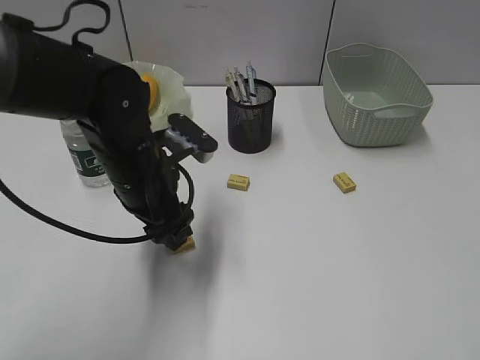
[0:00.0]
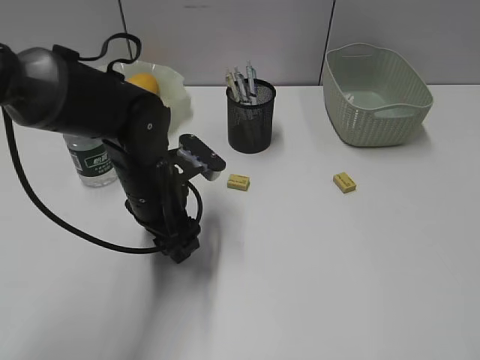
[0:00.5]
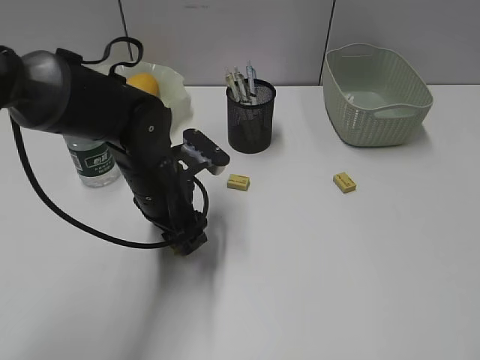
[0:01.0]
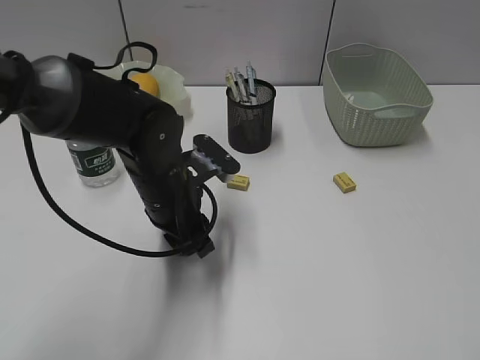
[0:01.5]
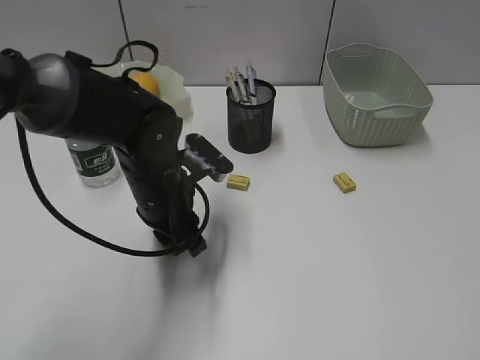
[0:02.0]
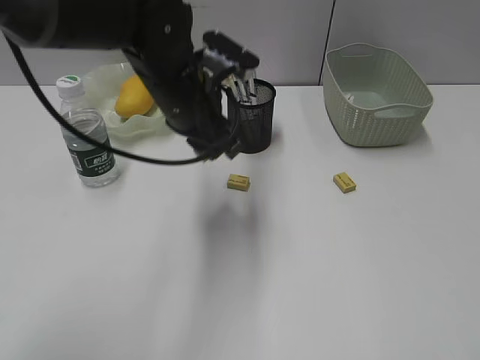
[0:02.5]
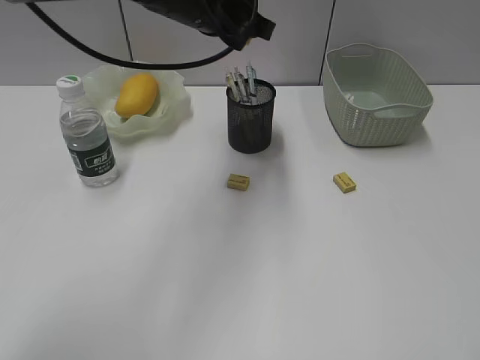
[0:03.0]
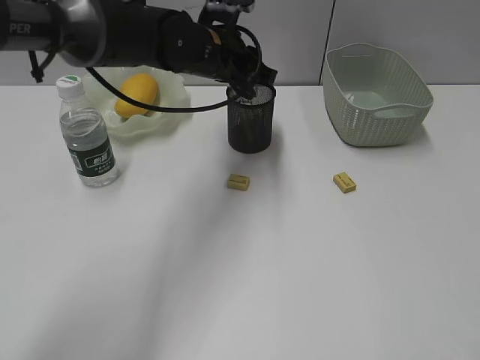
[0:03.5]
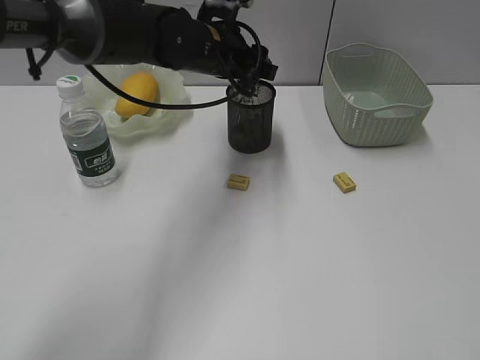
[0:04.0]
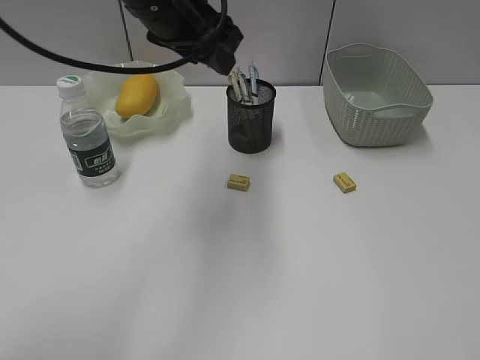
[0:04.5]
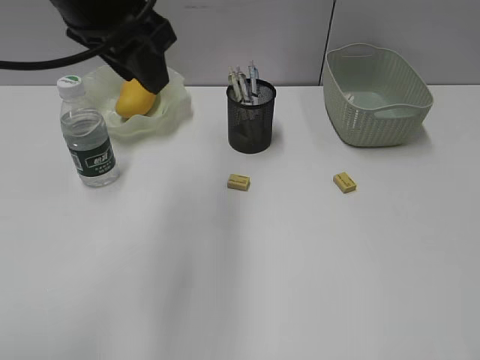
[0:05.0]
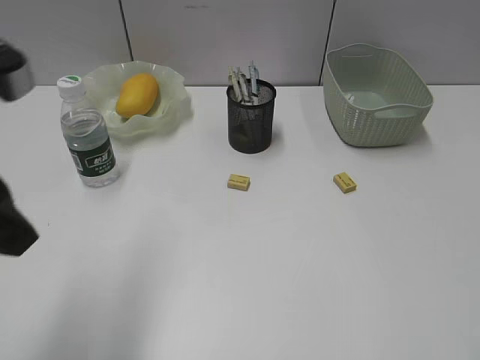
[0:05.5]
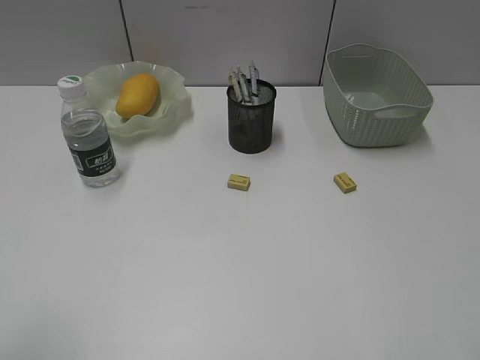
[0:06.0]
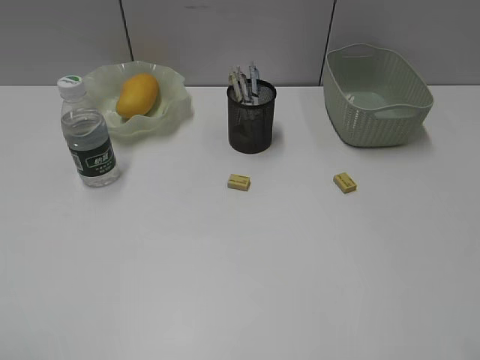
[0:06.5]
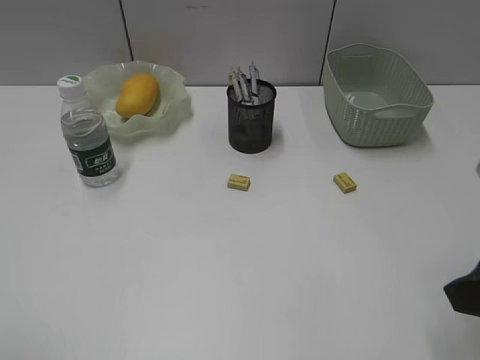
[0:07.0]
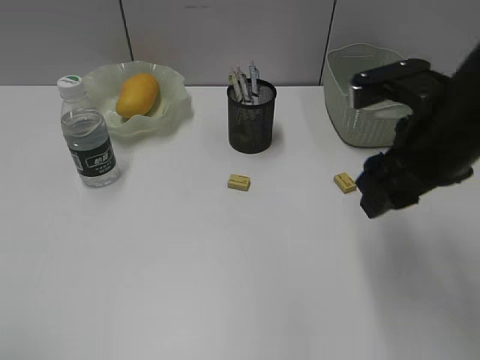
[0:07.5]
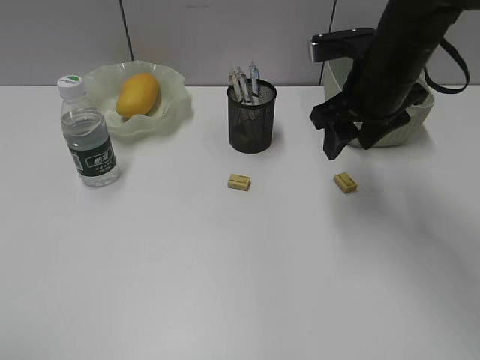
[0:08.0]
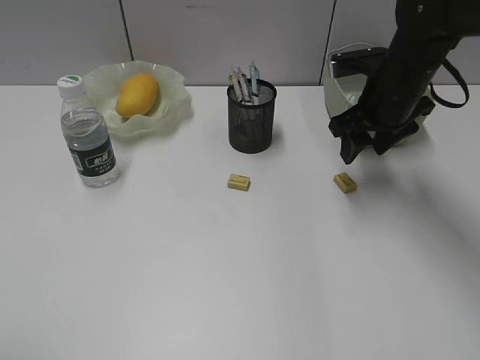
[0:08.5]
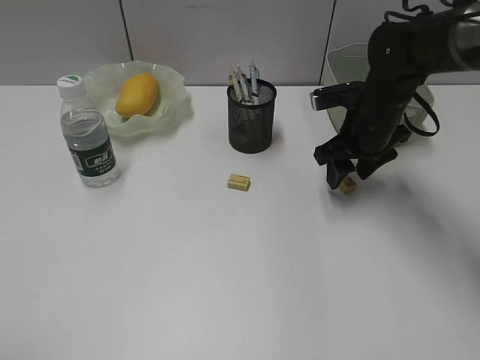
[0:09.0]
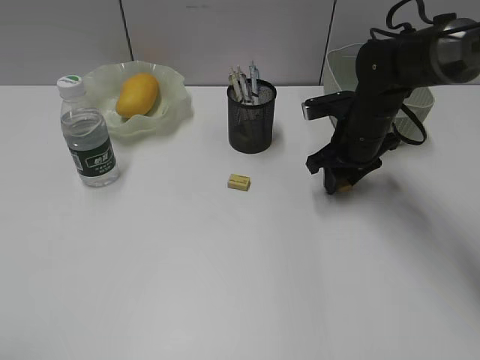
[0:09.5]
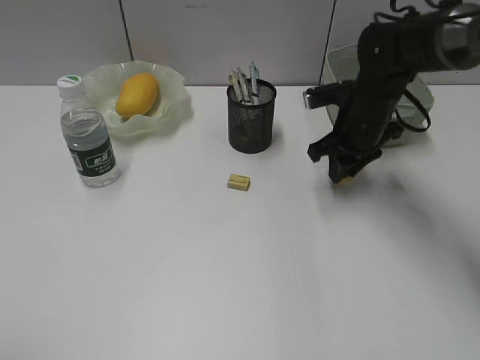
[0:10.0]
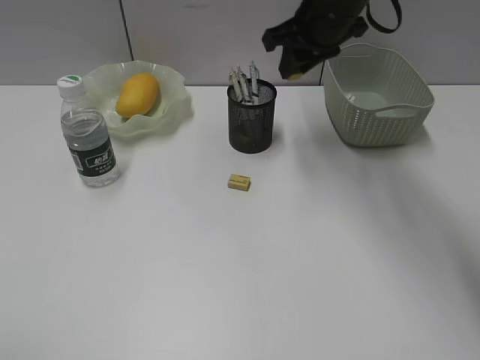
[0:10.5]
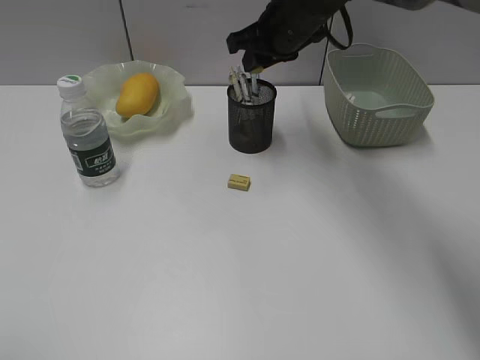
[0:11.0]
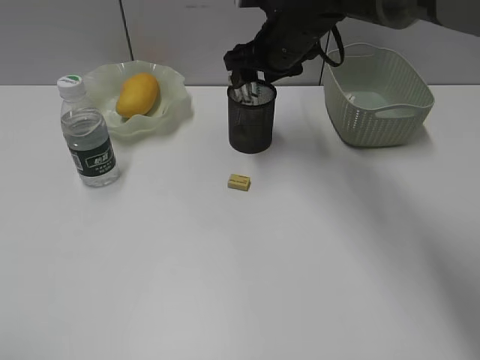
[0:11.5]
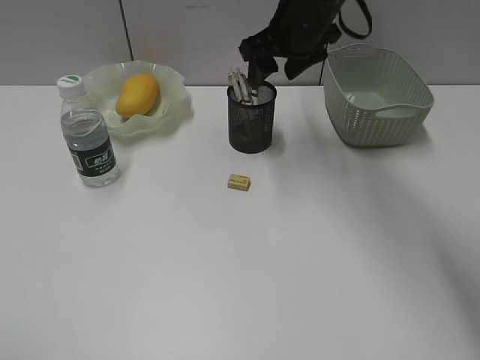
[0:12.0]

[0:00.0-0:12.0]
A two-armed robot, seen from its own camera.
Step, 0:02.0 to 0:03.5: Place the eraser in pen holder with left gripper.
Step, 0:04.0 to 0:09.5: Grasp the eraser with right gripper.
Step, 0:10.0 to 0:11.5: Place the eraser in pen holder with right gripper.
0:00.0 to 0:02.0: The left gripper closes.
0:02.0 to 0:04.0: The left gripper moves forward, upward and to the right, about 15 cm, and opens.
0:04.0 to 0:06.0: The left gripper is displaced backward and to the left by approximately 50 cm.
0:06.0 to 0:08.0: The right gripper is displaced forward by roughly 30 cm.
0:08.0 to 0:10.0: The right gripper goes approximately 10 cm downward and forward, and closes up.
0:10.0 to 0:12.0: The right gripper is displaced upward and to the left by roughly 15 cm, and opens.

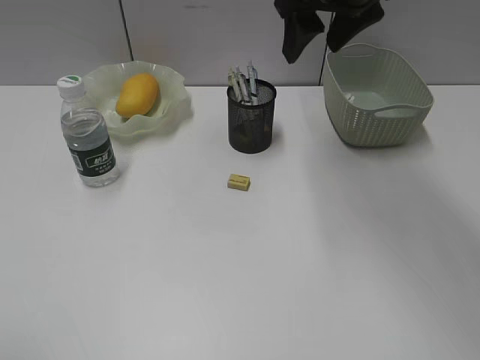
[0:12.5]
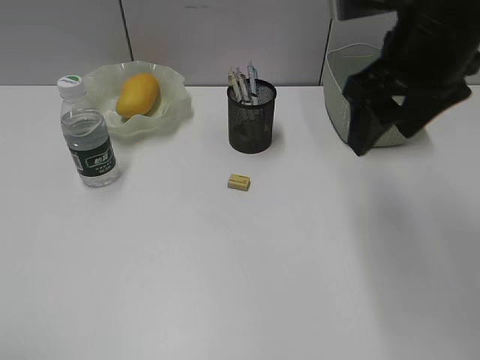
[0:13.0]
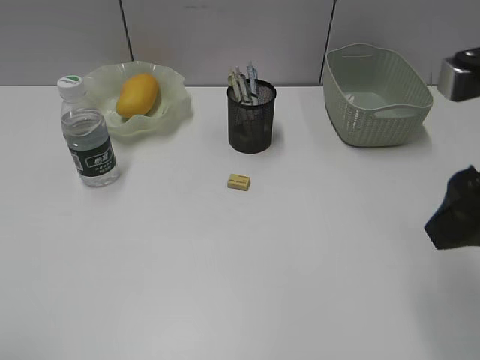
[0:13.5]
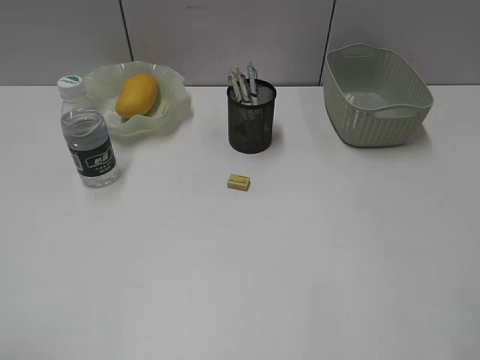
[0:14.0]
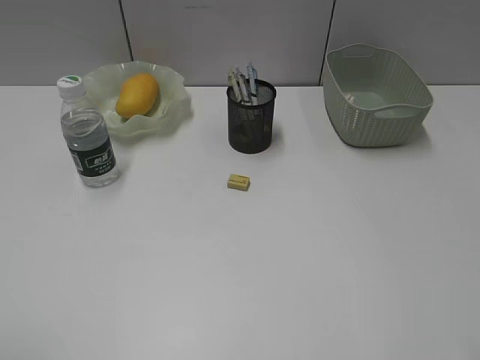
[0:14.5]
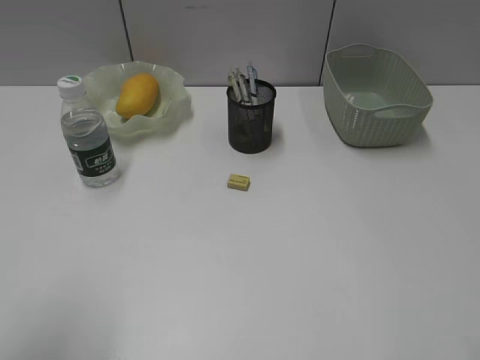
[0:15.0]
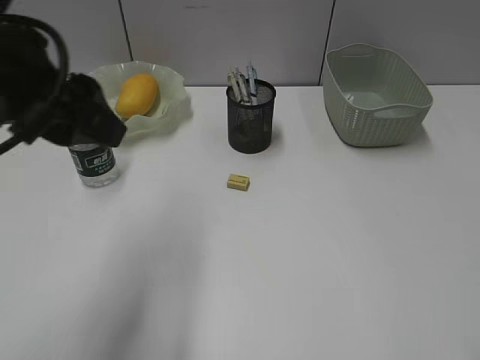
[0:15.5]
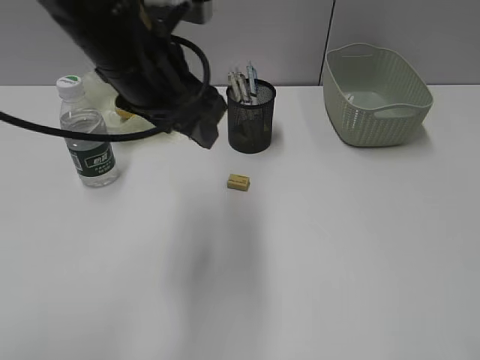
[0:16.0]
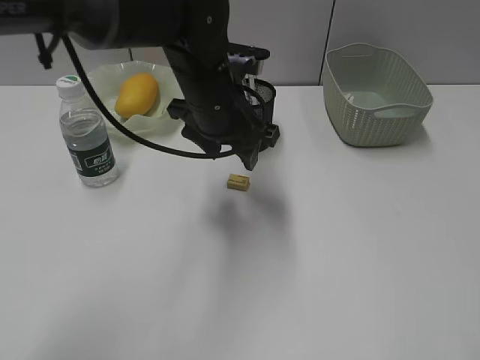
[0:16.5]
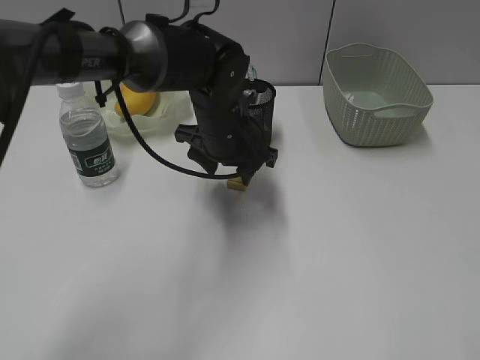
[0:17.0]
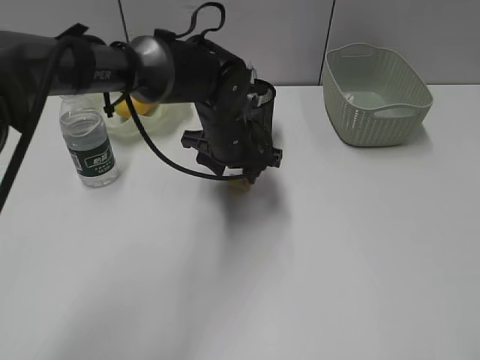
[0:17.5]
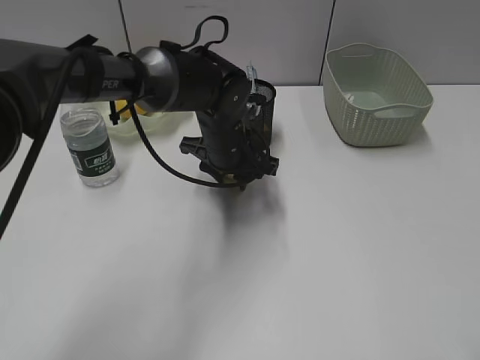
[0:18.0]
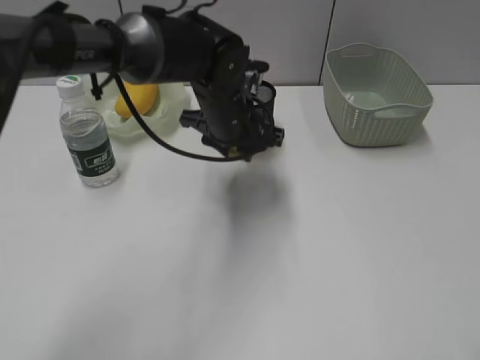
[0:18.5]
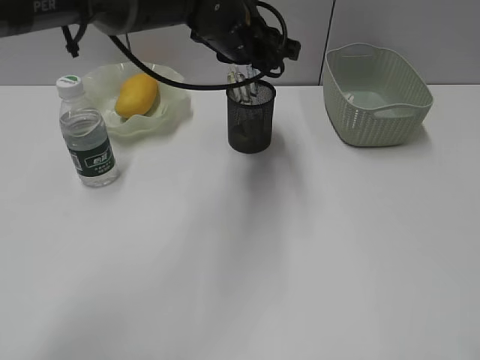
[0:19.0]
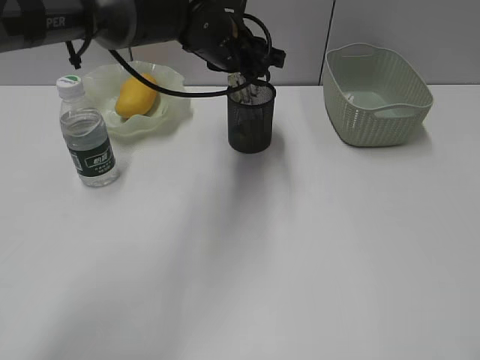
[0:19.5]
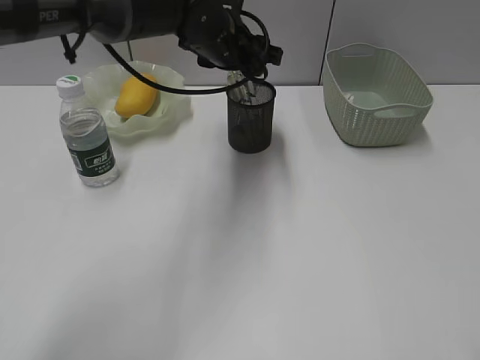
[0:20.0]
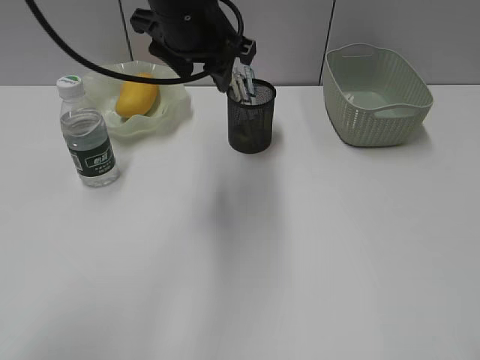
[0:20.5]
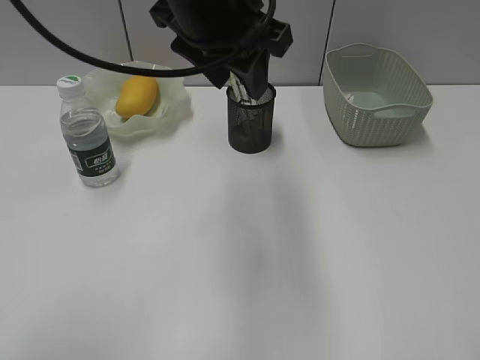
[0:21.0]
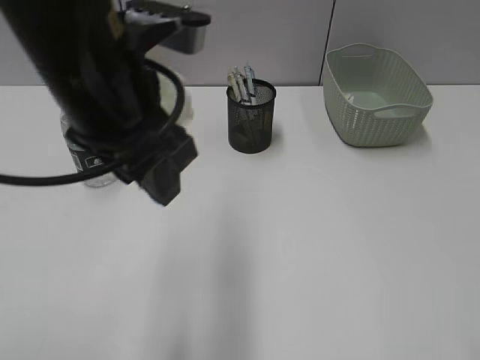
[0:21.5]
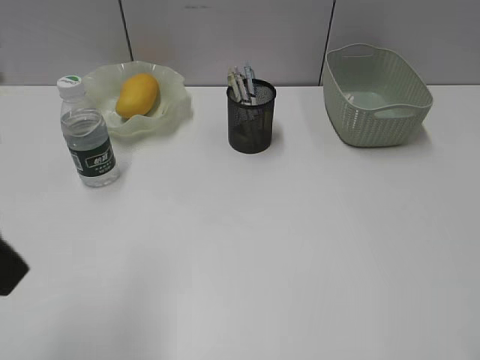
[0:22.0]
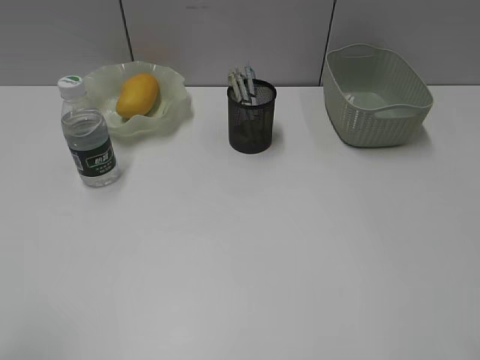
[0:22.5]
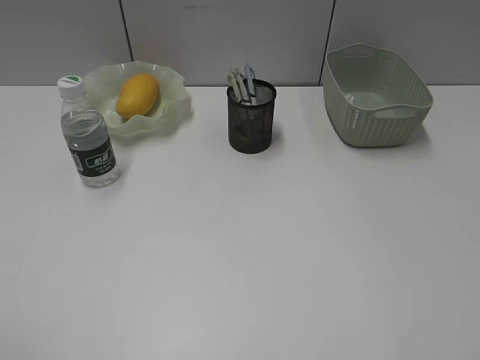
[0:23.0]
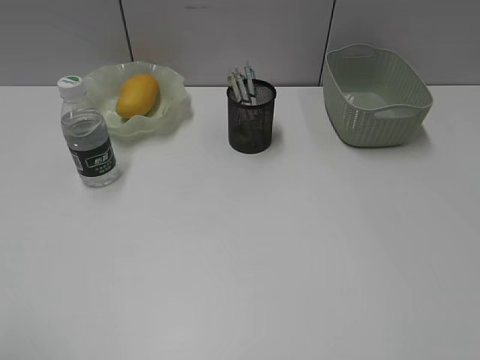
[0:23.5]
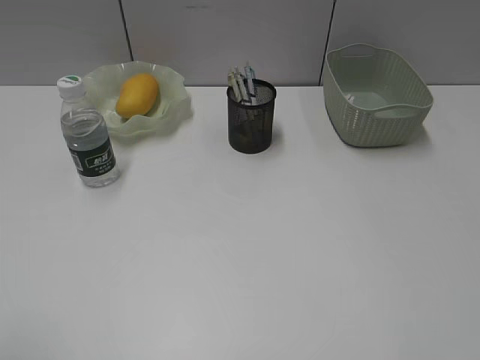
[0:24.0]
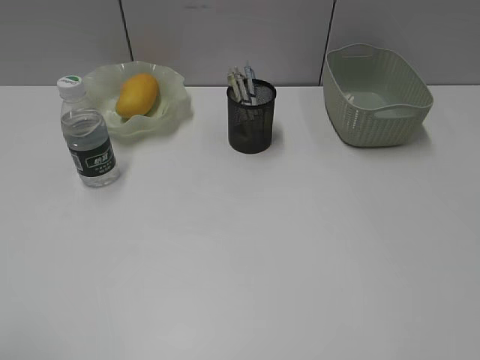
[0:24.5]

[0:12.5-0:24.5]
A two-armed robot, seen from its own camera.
Step, 0:12.5 to 0:18.0: Grasp the eraser with left gripper.
Step, 0:18.5 to 0:19.5: Place the eraser in pen holder with left gripper.
0:12.5 to 0:14.5: The right gripper travels backward and to the right by some 40 cm.
0:14.5 to 0:16.5: The left gripper heads forward and to the right, covering about 40 cm.
0:16.5 to 0:18.5: The left gripper moves downward, approximately 5 cm, and closes.
0:18.5 to 0:20.5: The left gripper moves upward, roughly 15 cm, and opens up.
0:20.5 to 0:22.5: The left gripper is displaced backward and to the left by approximately 40 cm.

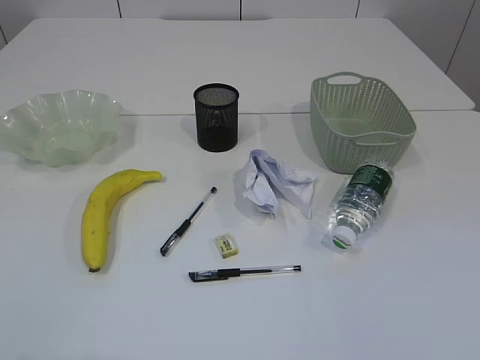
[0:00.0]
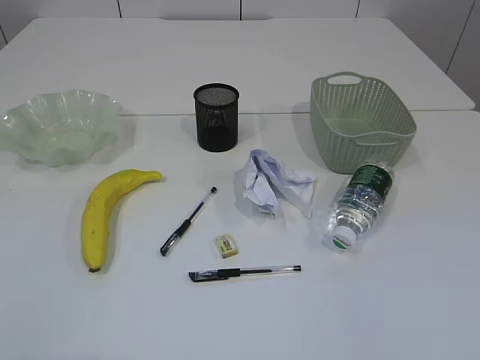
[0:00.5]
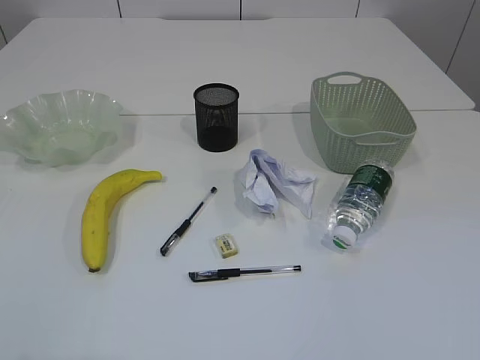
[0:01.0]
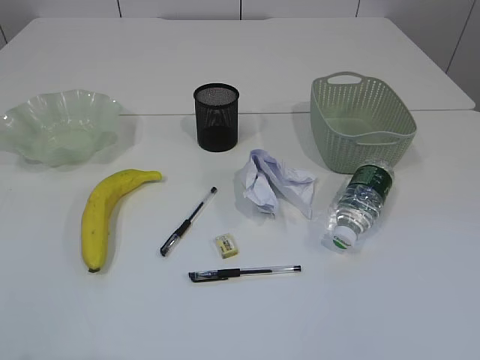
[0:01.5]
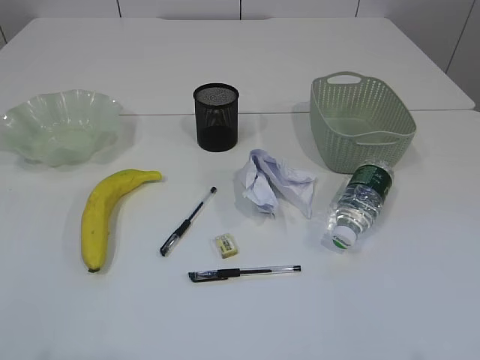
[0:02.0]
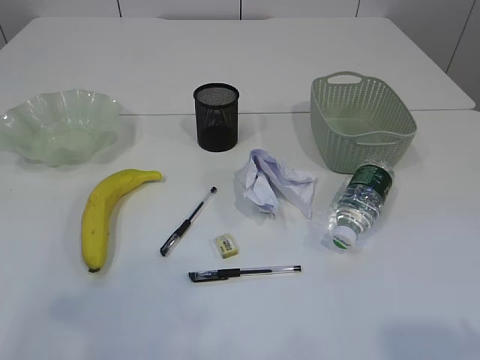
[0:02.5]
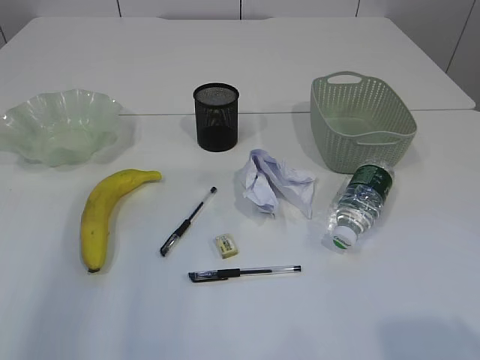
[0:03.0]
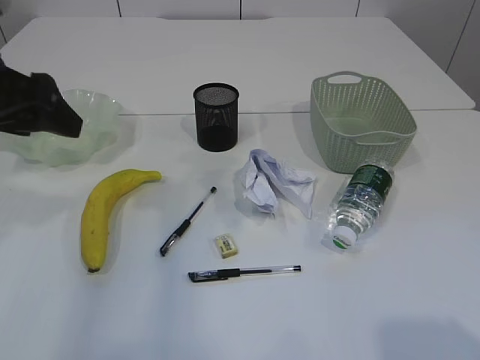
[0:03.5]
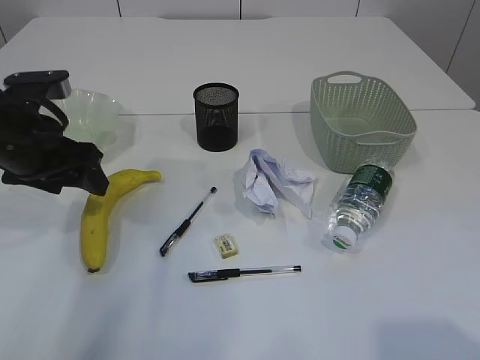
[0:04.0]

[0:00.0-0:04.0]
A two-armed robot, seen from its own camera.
0:02.0 to 0:04.0: The right gripper moves forward, approximately 5 cm; the left gripper is displaced forward by some 35 cm.
